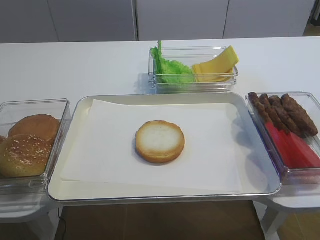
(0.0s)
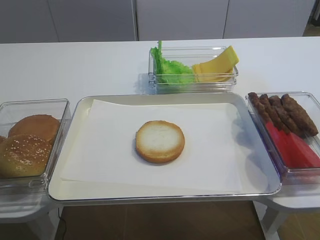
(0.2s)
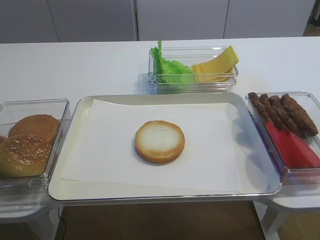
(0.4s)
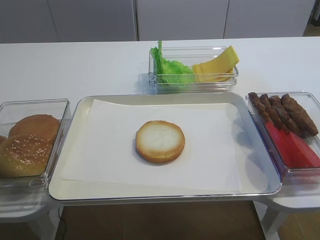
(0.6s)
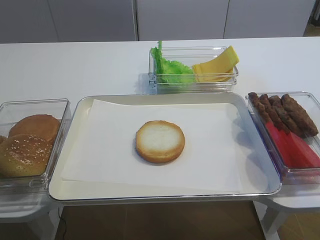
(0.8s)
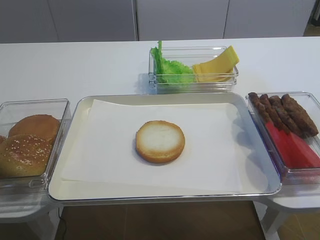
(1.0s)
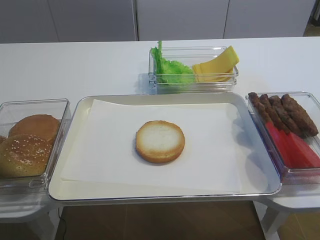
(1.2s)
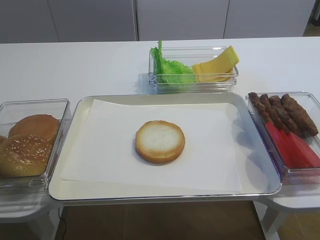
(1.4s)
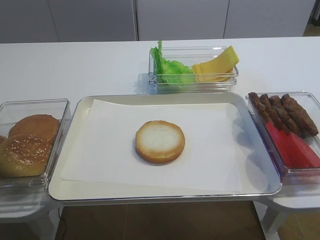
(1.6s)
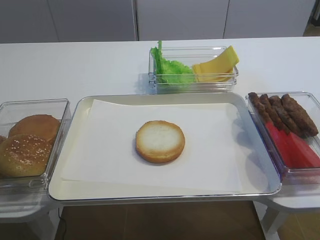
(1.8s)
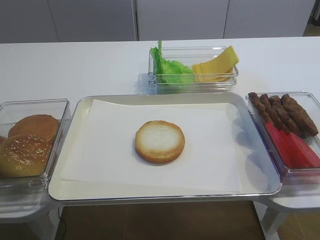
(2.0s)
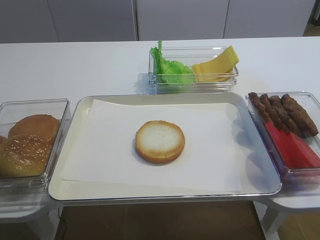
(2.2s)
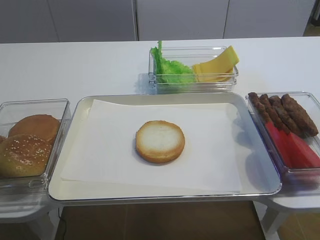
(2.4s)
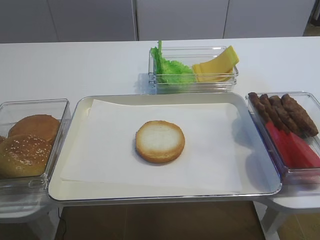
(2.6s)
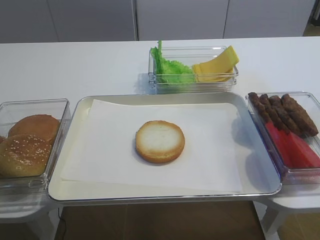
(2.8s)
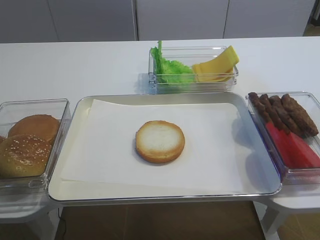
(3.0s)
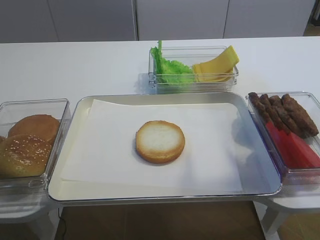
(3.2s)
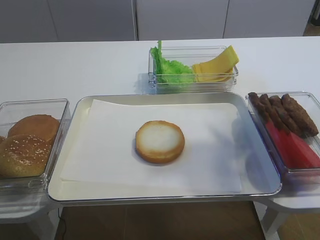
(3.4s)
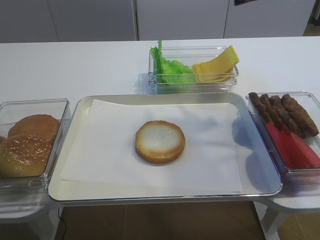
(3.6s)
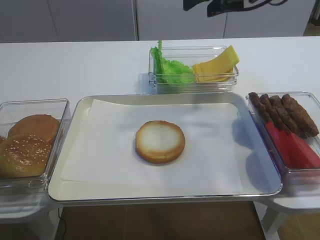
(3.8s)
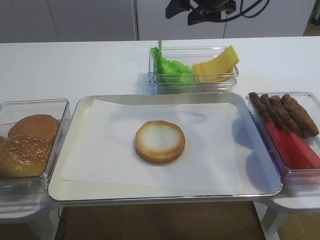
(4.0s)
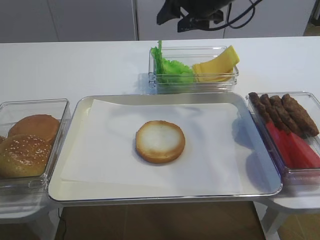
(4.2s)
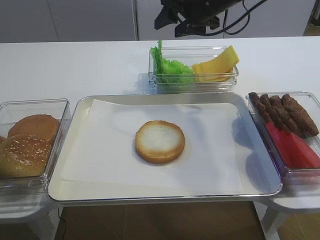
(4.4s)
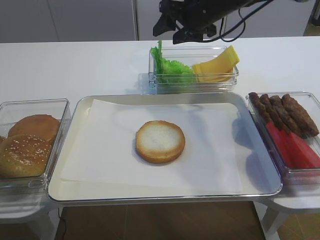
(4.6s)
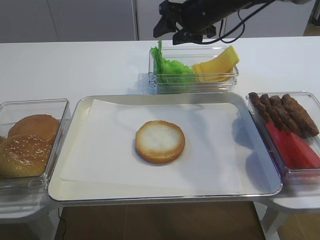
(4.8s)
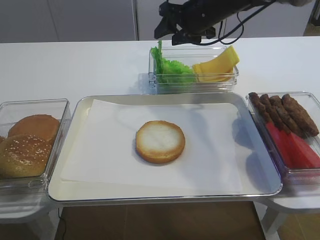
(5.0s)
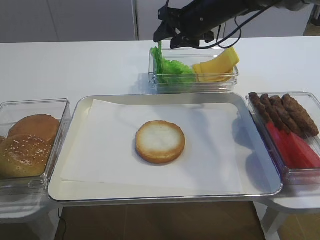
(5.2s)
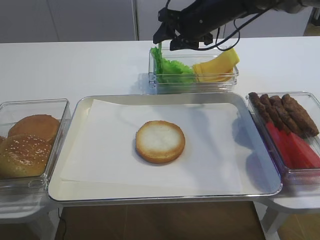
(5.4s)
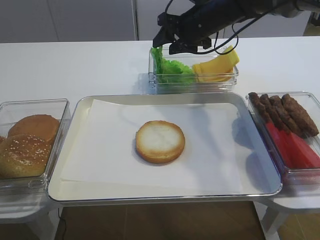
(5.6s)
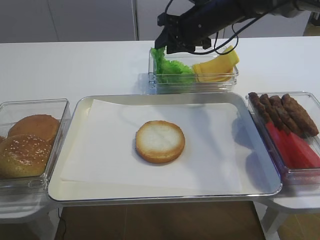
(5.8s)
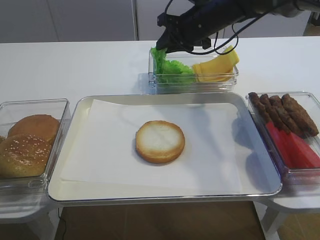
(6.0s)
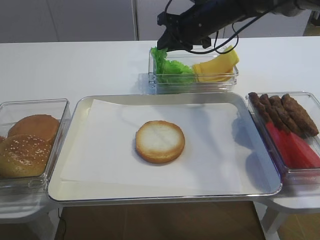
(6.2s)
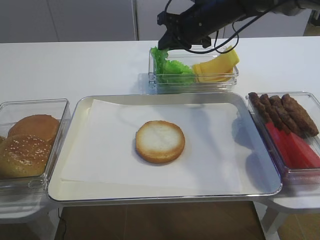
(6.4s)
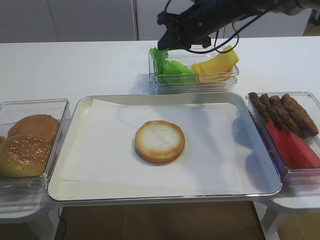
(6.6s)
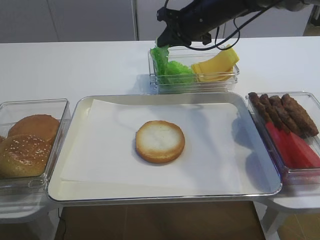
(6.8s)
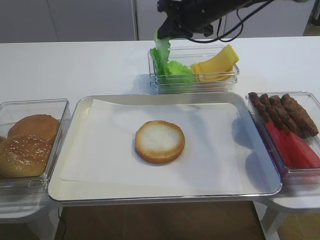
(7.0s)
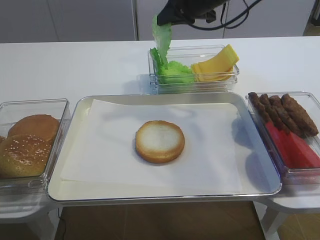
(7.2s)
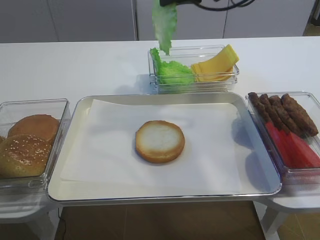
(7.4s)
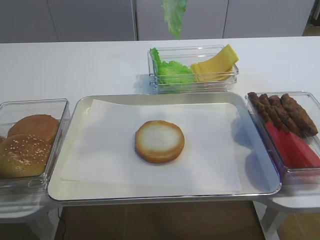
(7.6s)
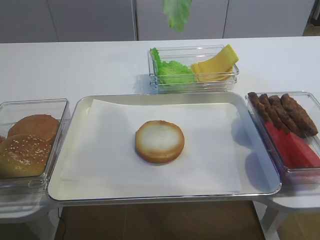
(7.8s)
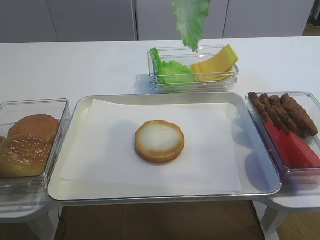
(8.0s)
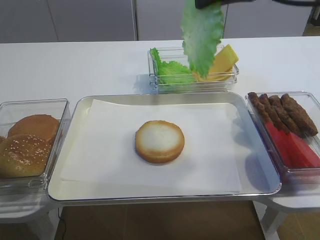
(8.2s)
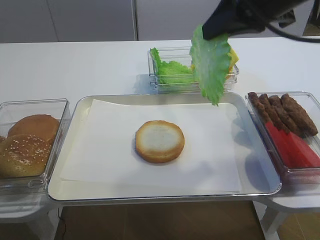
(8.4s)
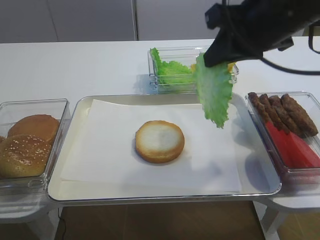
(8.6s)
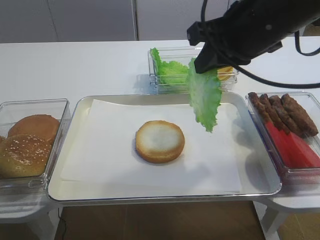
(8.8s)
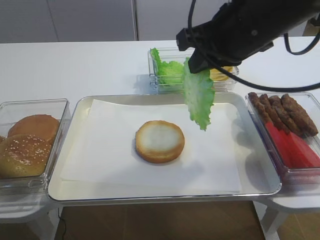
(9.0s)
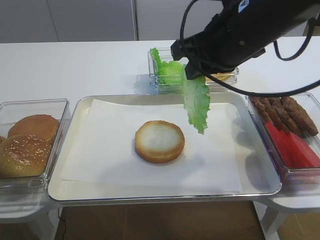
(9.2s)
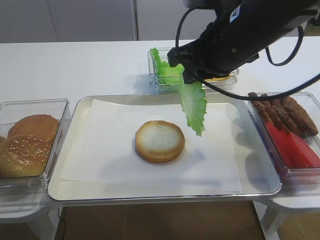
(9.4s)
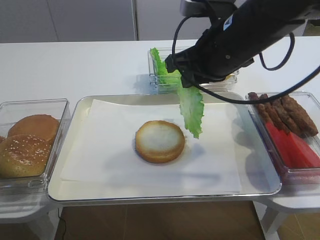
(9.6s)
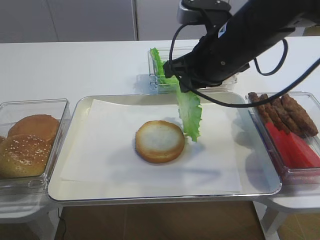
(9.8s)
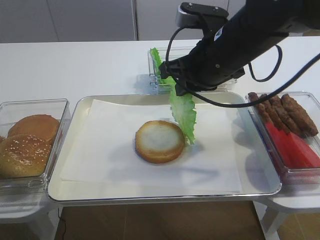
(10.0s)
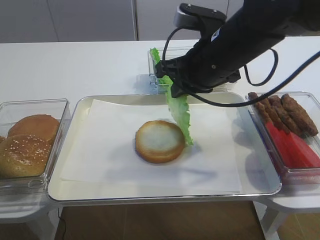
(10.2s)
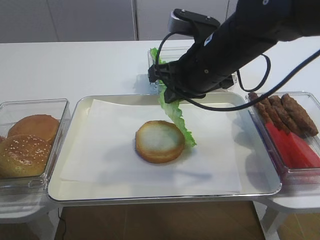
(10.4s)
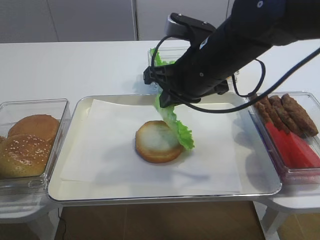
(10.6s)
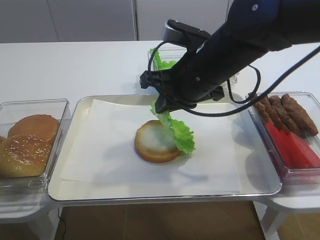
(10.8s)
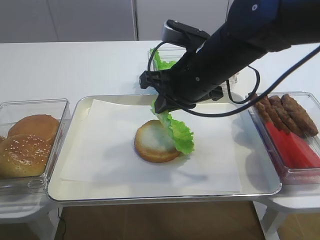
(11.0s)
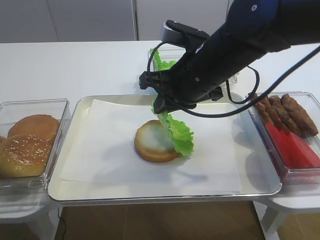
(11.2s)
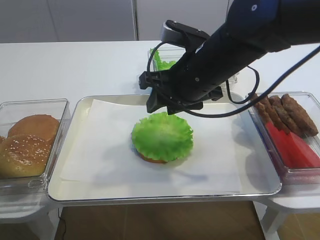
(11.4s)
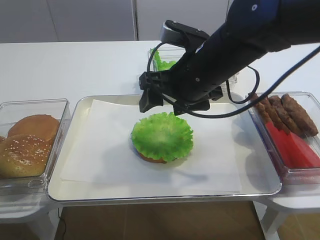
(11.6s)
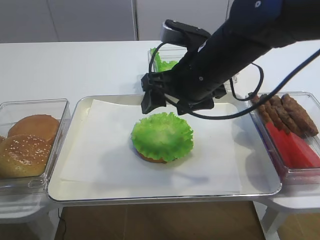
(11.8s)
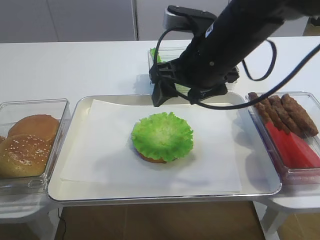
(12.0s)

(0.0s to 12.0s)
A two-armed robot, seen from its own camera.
Step, 0.0s - 7.4s: Pick up the lettuce leaf with the right gripper.
Step, 7.6s - 11.4s: Place the lettuce leaf on the bread slice with the right gripper.
1.6s - 3.0s: The right gripper moves forward and upward, roughly 25 cm.
3.0s - 4.4s: The right gripper moves forward, to the left and downward, about 30 cm.
4.4s - 6.0s: The right gripper closes up.
6.0s - 7.6s: The right gripper heads upward and backward, covering about 20 cm.
7.6s - 9.0s: The right gripper goes about 15 cm backward and downward.
9.0s - 10.4s: The right gripper goes some 5 cm downward.
10.4s - 12.0s: The right gripper opens up.

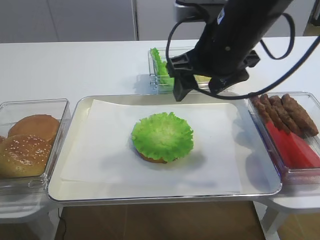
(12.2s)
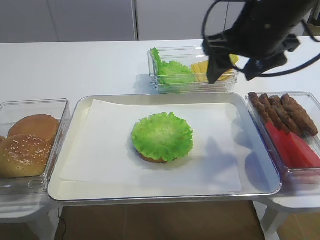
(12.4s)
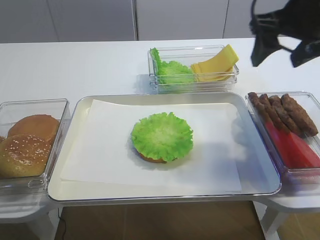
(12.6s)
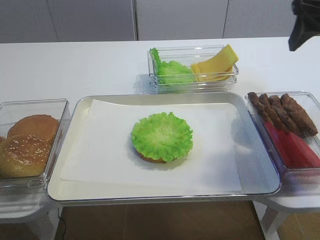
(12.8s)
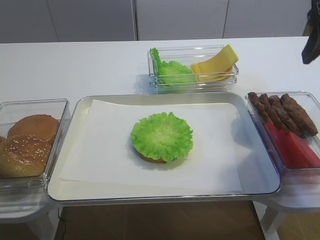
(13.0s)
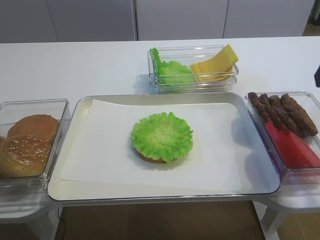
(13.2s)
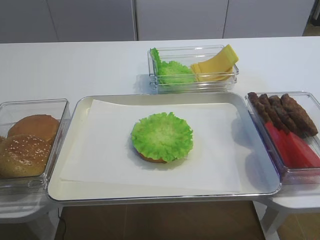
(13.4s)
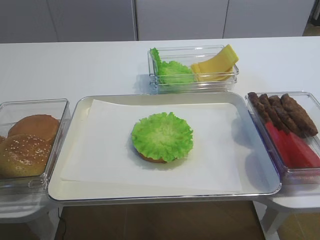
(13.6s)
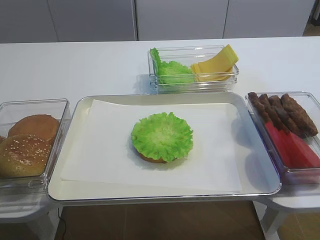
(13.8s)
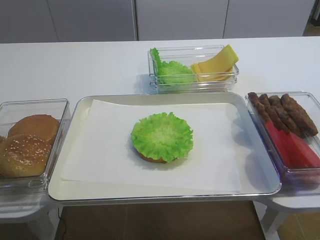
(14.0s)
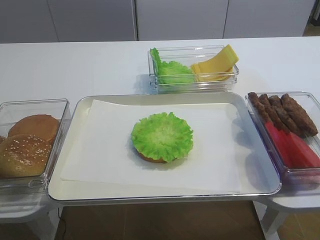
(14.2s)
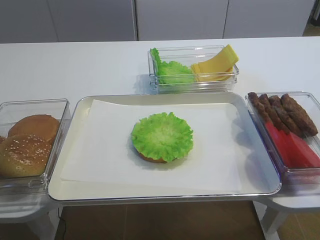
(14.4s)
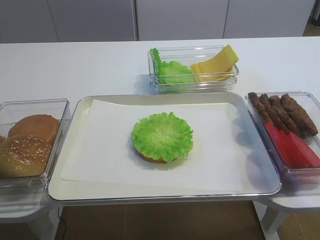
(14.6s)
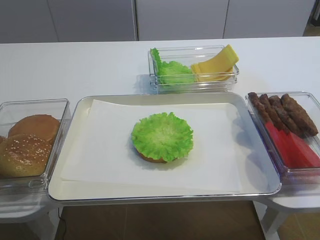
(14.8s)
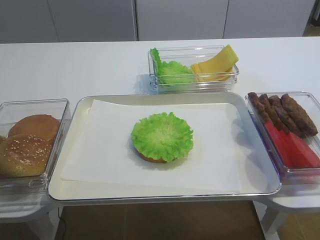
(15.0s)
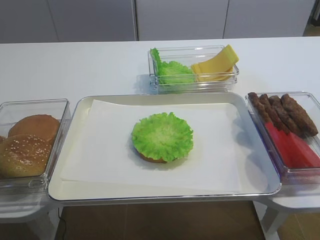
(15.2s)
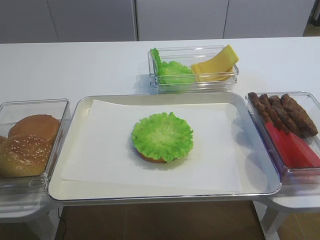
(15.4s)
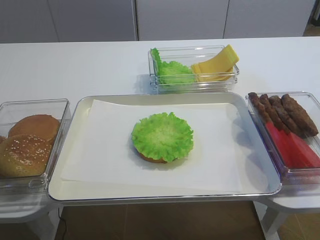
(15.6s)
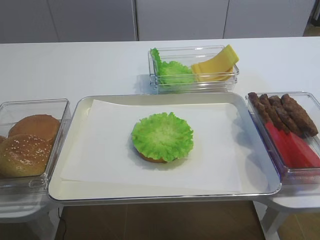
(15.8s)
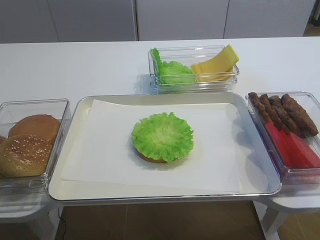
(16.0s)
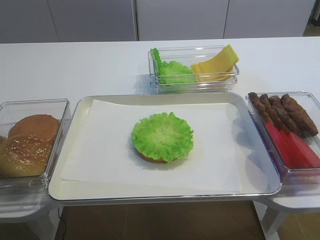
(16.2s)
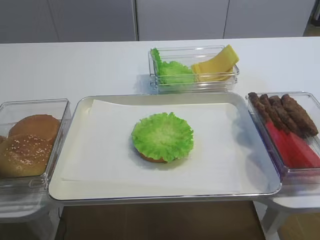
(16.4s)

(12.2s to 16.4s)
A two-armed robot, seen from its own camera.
12.2s - 13.6s: The right gripper heads to the right and backward, covering some 25 cm.
15.0s - 16.4s: Both grippers stay put.

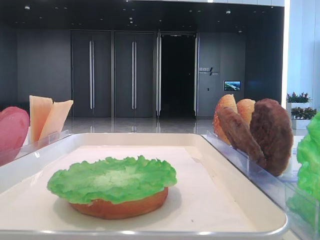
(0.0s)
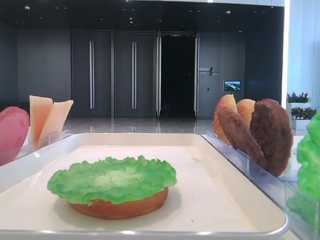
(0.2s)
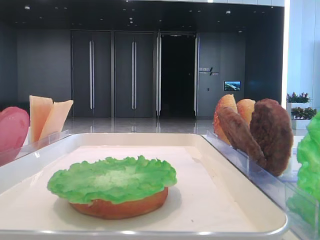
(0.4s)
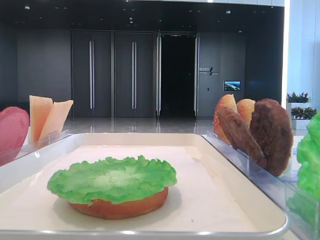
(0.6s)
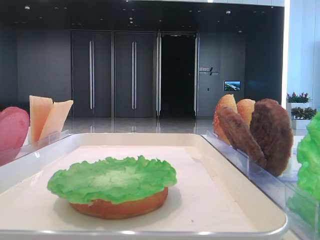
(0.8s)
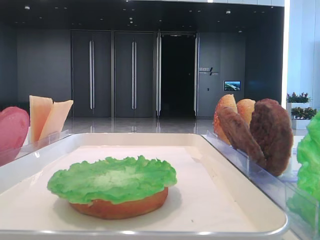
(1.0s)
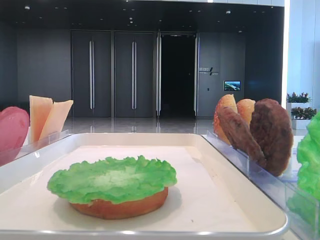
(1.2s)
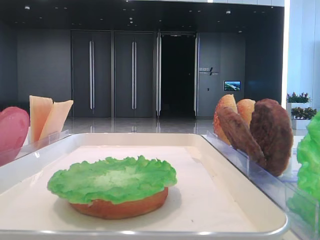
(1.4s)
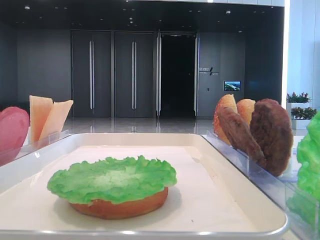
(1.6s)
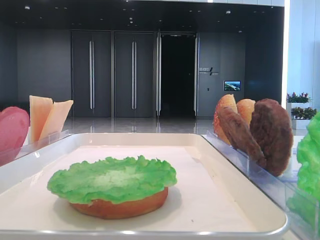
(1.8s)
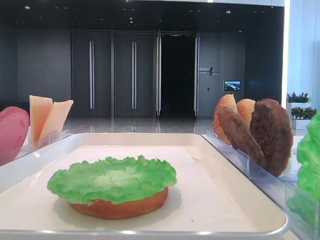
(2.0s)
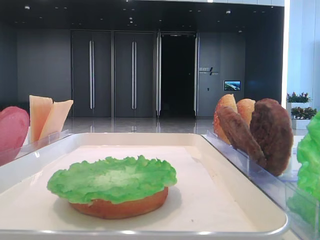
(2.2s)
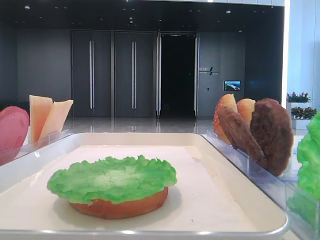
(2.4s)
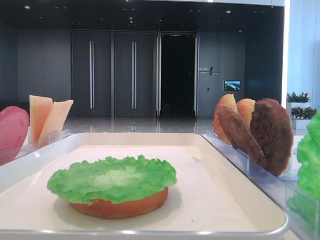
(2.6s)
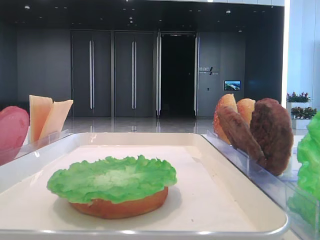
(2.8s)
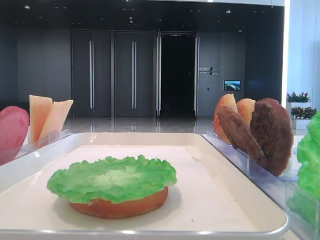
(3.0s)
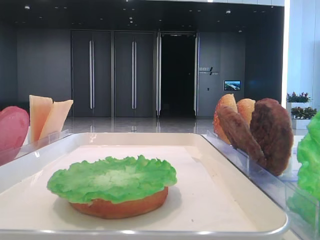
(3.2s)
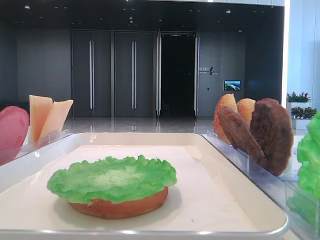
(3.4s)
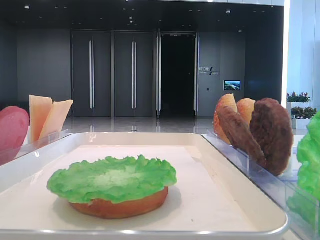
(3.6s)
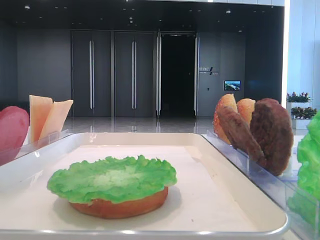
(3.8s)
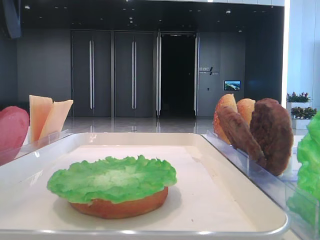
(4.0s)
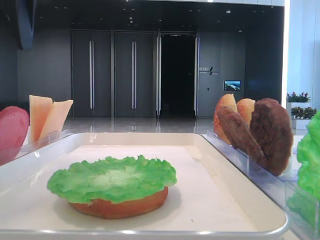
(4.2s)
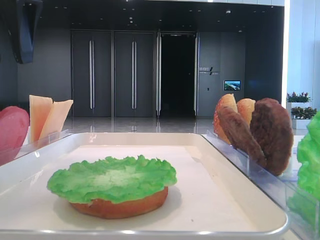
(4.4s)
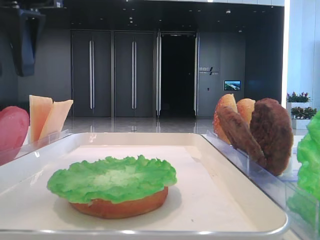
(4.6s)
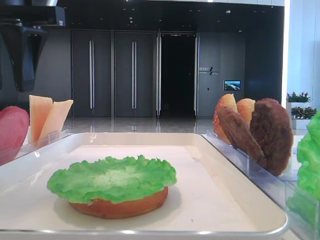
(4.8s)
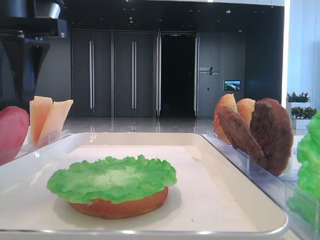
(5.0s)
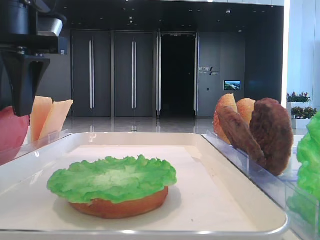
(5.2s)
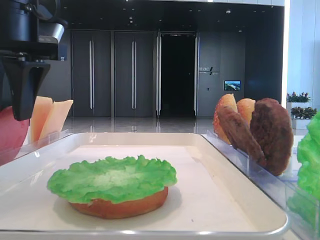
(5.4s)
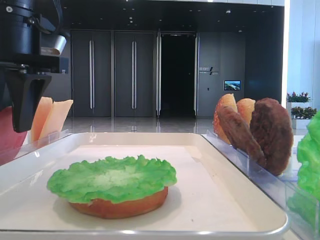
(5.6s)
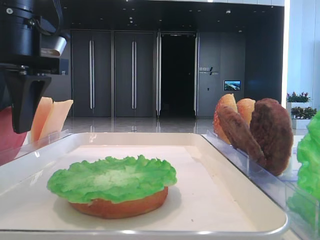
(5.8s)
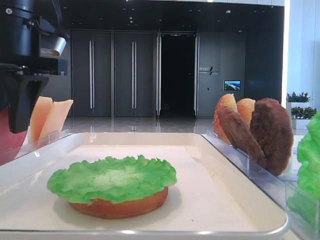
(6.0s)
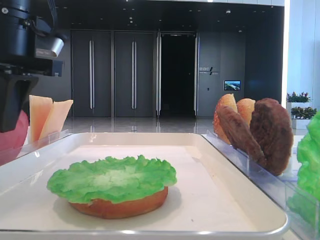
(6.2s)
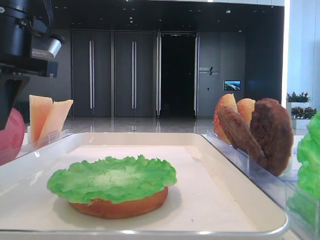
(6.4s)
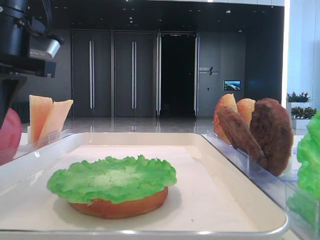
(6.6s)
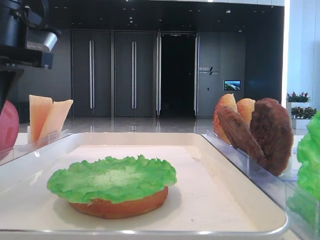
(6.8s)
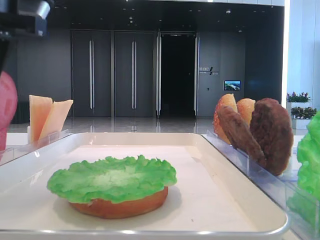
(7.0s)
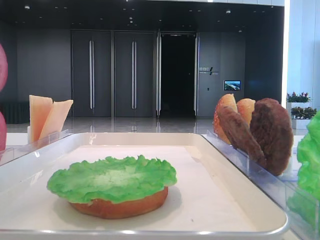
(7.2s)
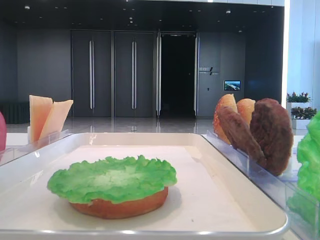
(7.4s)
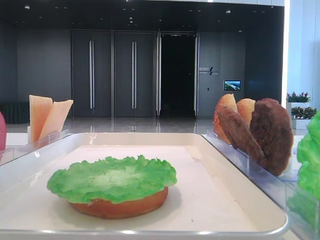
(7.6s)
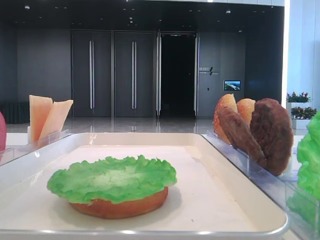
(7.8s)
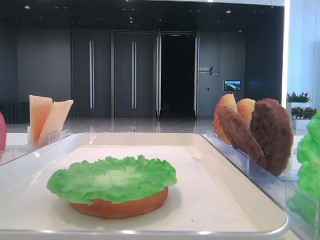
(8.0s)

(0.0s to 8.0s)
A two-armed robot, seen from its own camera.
Step, 0.0s - 6.4s: Pick up the tomato slice with the left hand.
3.2s - 4.8s: The left gripper shifts about 15 cm to the right.
4.8s - 6.4s: The left gripper shifts by roughly 5 cm, and closes up.
6.4s - 8.0s: The left gripper goes about 15 cm upward and backward.
